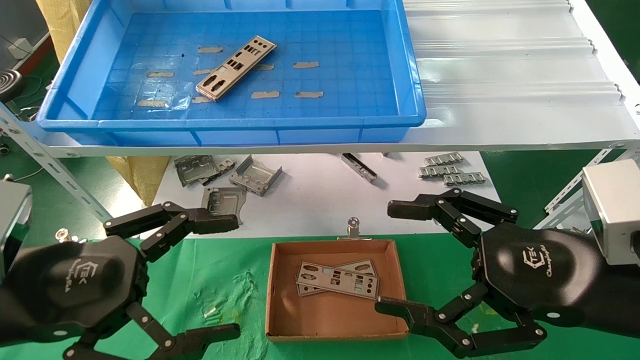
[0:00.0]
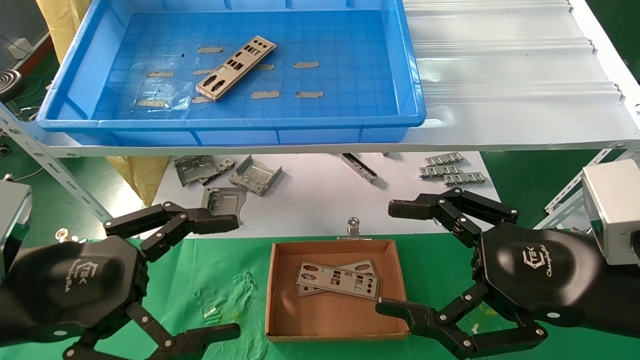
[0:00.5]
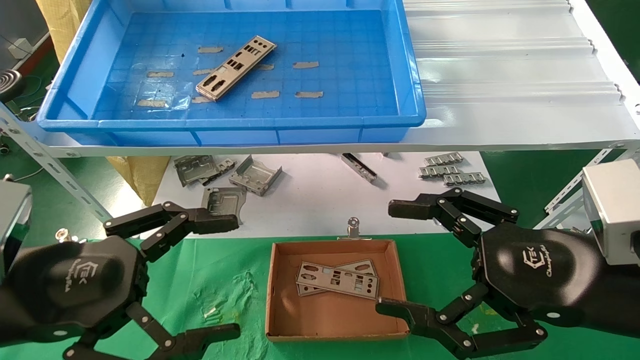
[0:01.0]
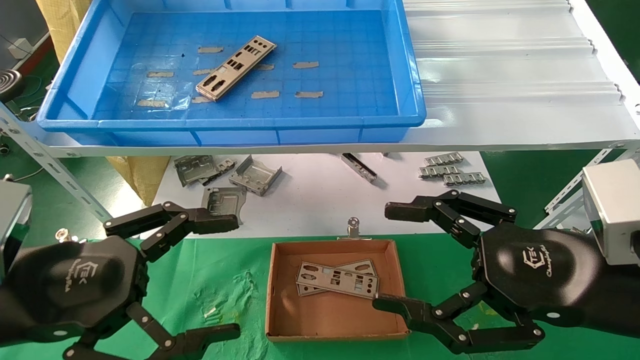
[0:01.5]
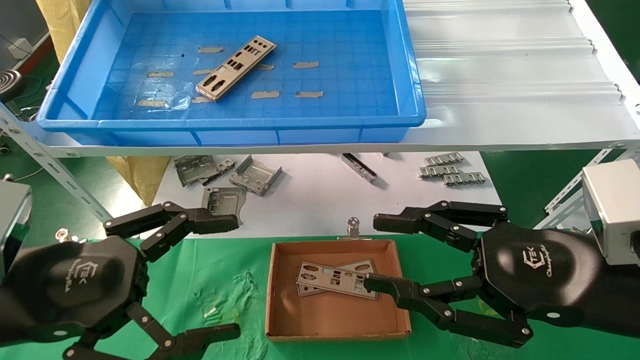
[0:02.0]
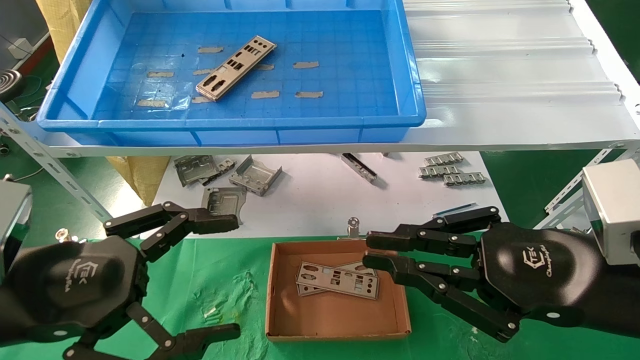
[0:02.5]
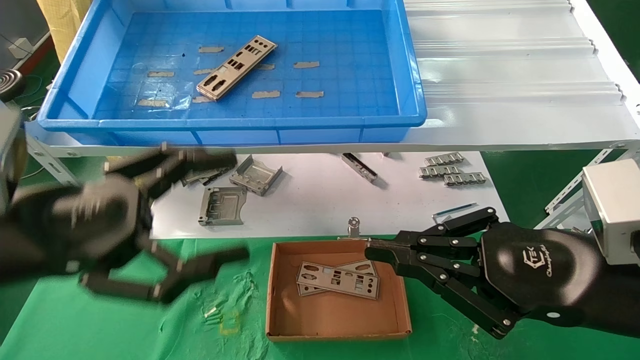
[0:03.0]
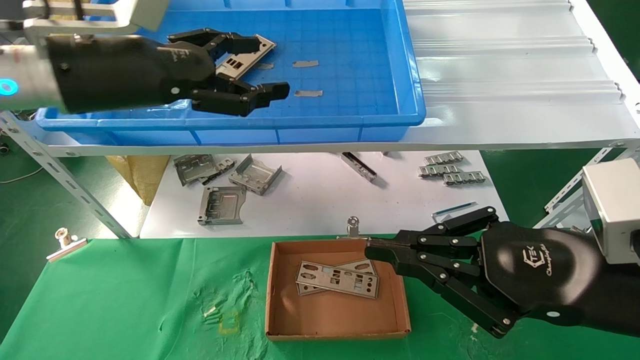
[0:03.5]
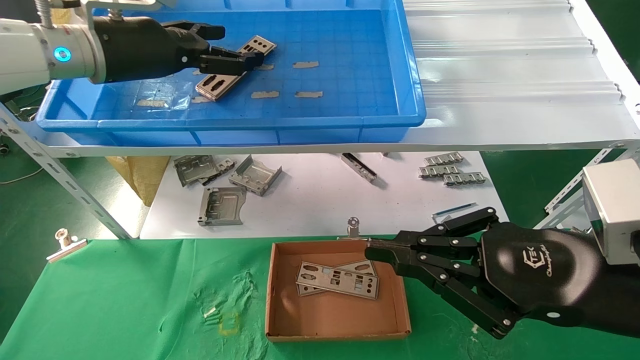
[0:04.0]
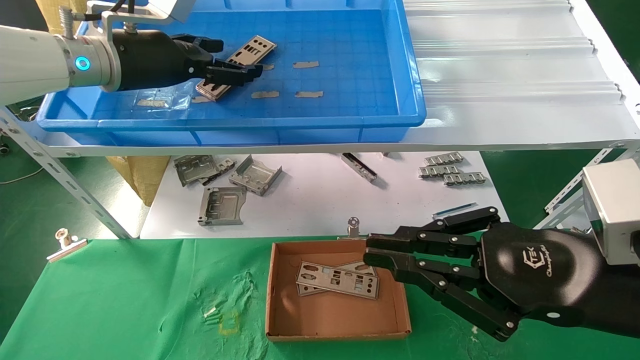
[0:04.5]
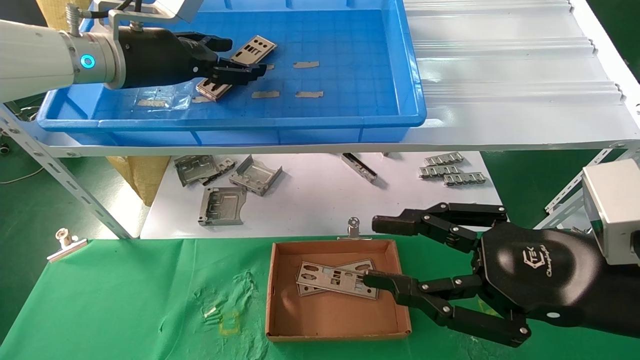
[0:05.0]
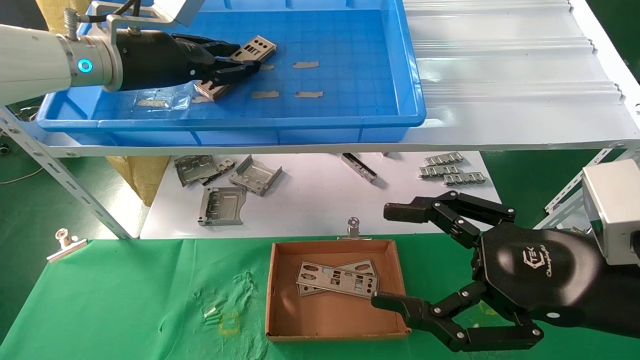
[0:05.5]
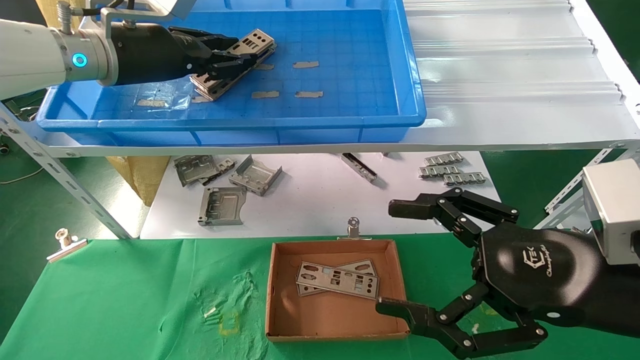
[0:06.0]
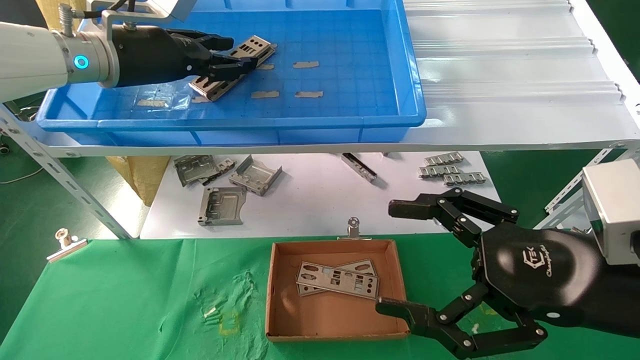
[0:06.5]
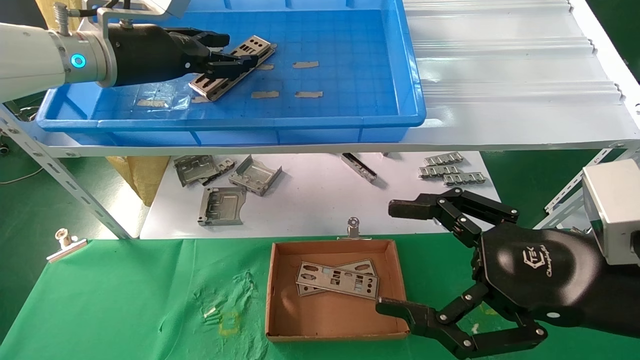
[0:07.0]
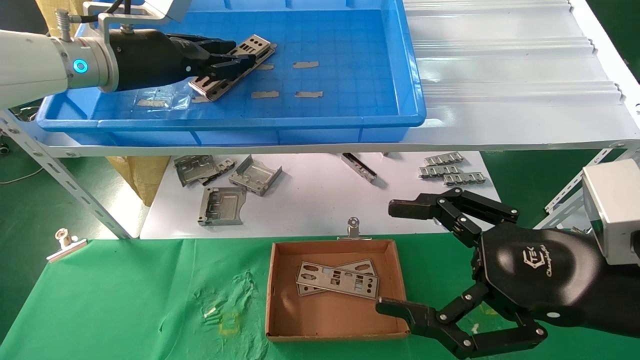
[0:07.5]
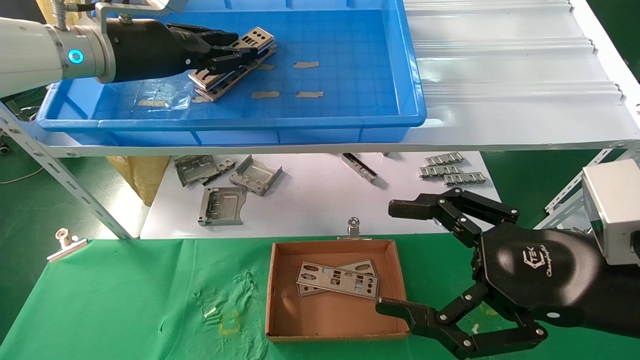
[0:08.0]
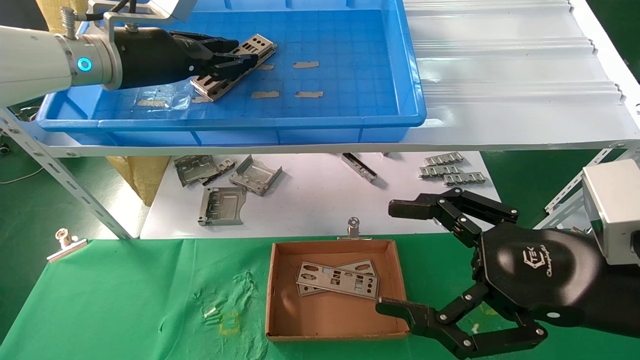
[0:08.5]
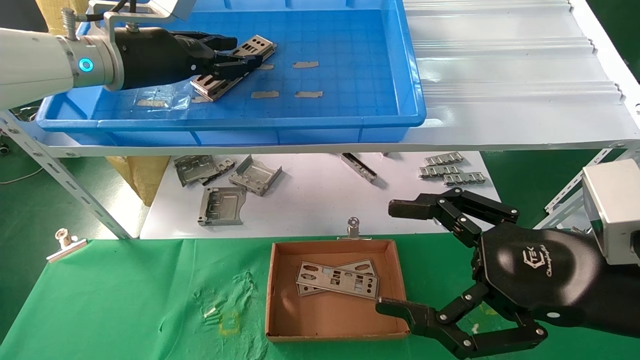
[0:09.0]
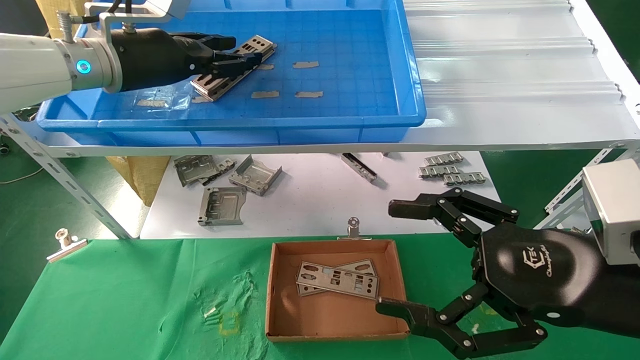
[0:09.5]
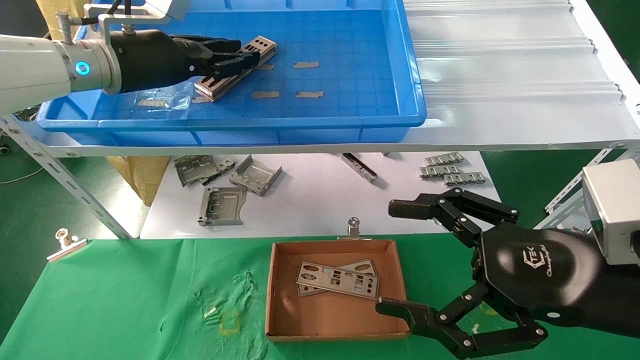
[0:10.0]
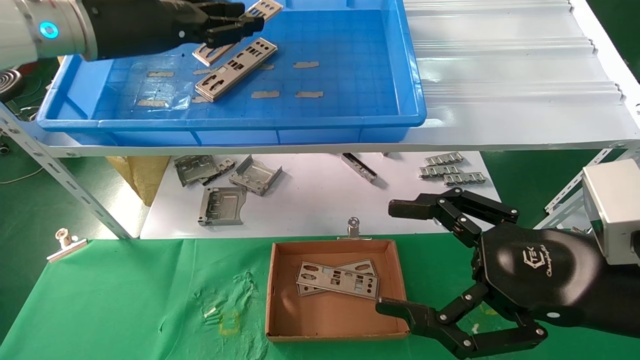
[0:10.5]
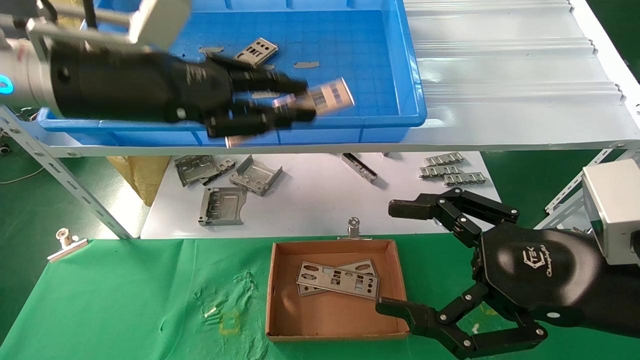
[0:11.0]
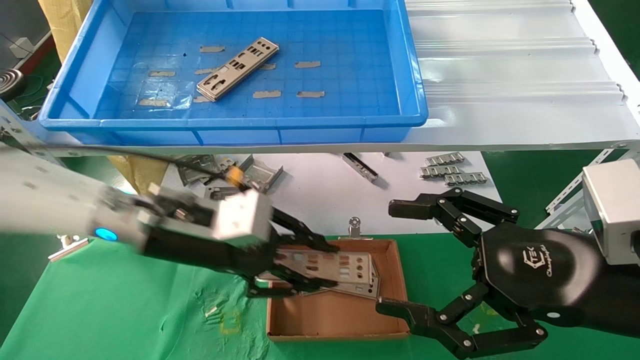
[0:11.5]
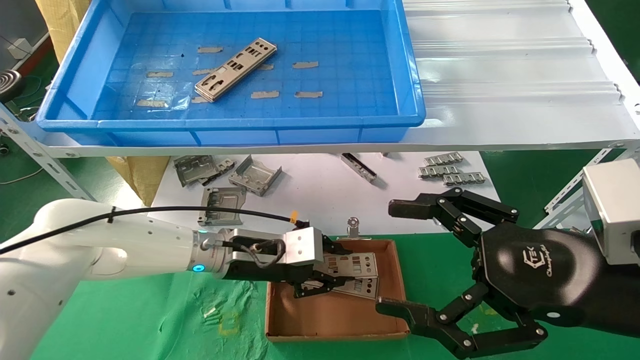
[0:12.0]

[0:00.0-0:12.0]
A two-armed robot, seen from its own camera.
Task of the whole recording: pick up the parts on the tray and put them in the cardboard box.
Step, 0:03.5 to 0:10.0: Pick up the IO bracket from the container box.
0:00.0 to 0:02.0: The right gripper closes its fingers.
0:02.0 to 0:04.0: The left gripper heads forward and upward, covering some 30 cm. Meanwhile the right gripper closes up.
0:04.0 to 0:06.0: The left gripper closes up, while the right gripper opens up.
0:06.0 to 0:08.0: The left gripper opens, then closes again.
0:08.0 to 0:10.0: There are only small adjustments of the grippers.
0:10.0 to 0:12.0: The left gripper goes approximately 30 cm downward and to the right.

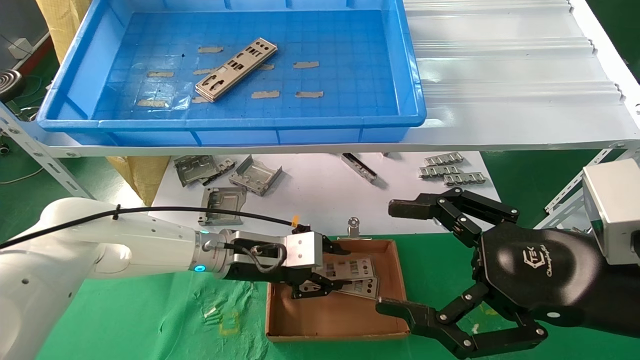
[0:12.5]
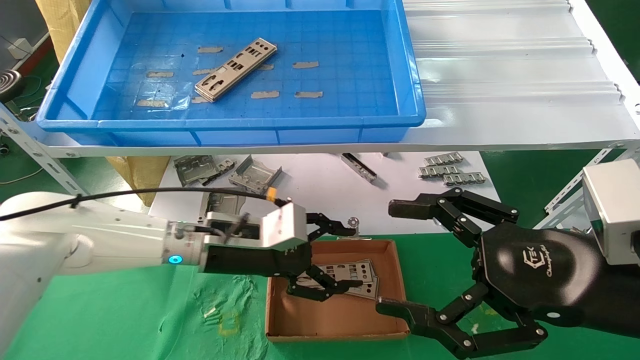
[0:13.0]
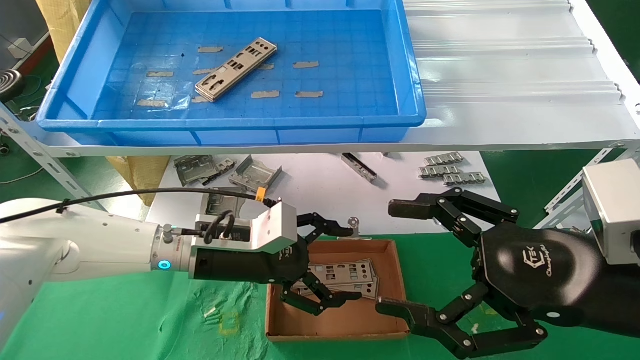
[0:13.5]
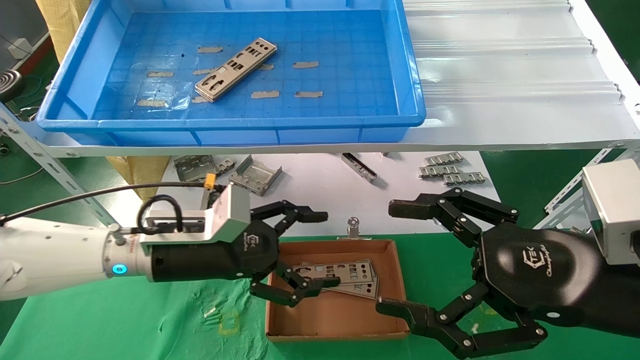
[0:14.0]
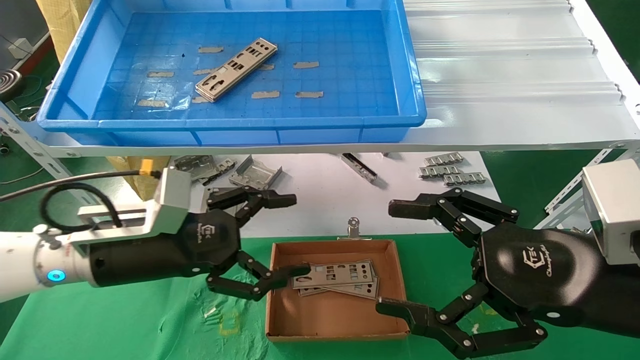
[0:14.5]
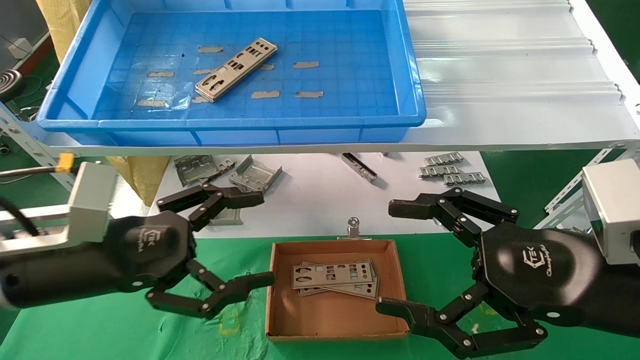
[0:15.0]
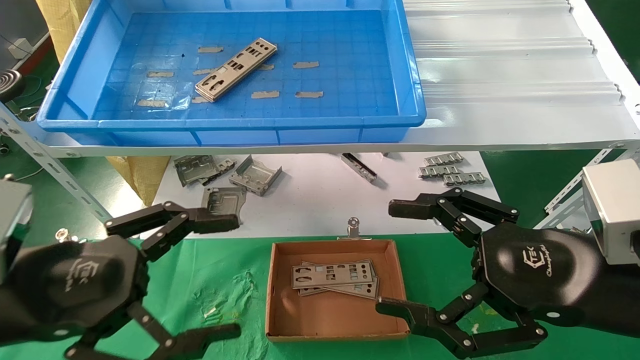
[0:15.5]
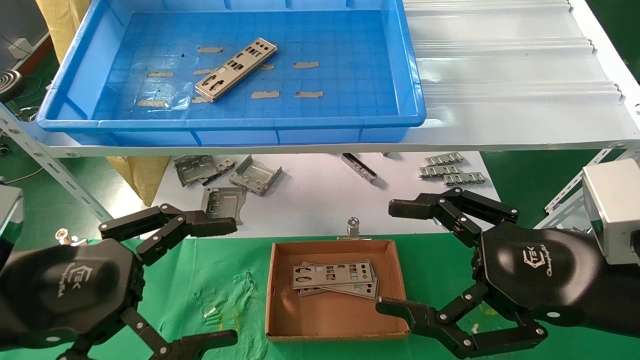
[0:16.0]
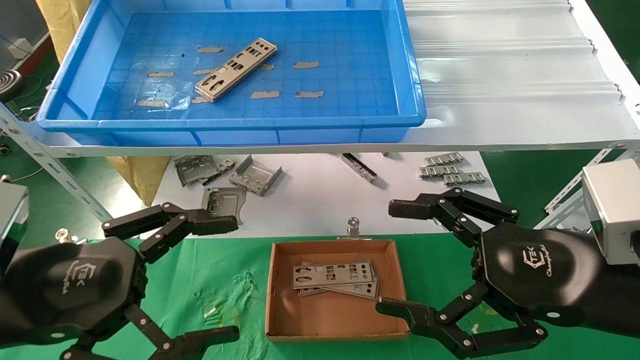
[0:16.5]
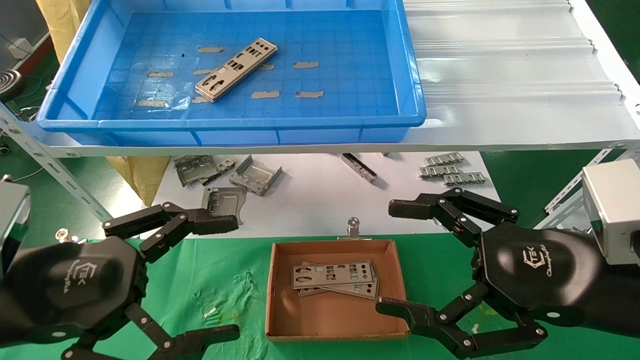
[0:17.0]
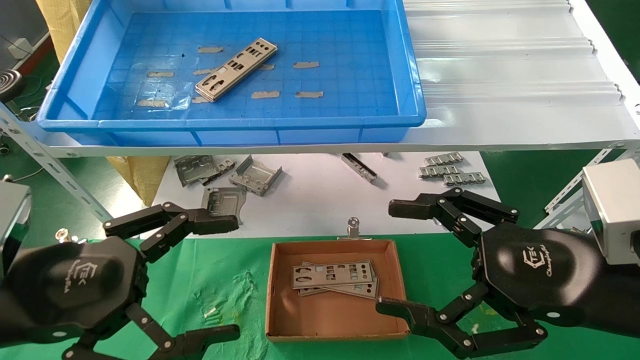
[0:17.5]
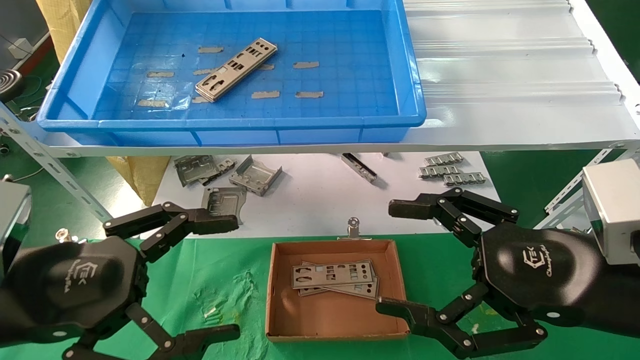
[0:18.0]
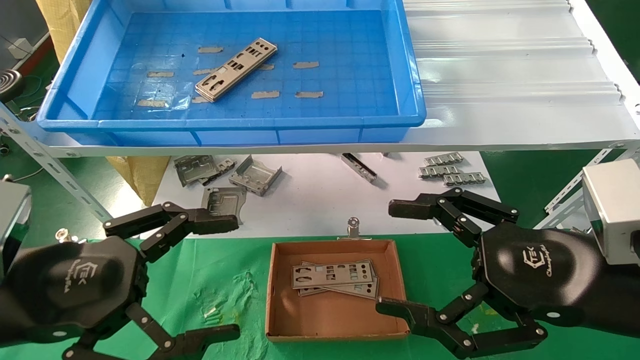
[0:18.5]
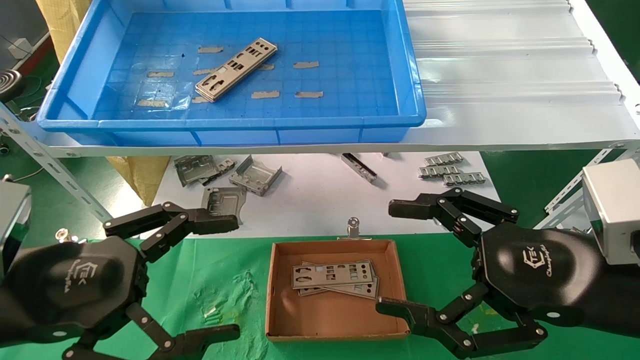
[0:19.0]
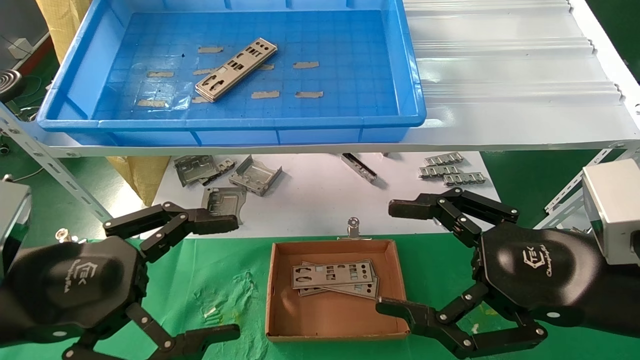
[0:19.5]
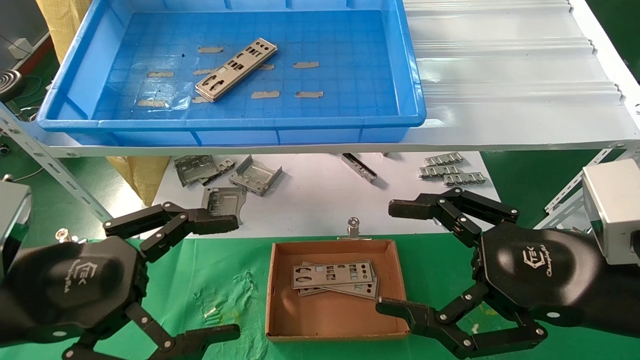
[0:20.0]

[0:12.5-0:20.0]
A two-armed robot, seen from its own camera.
Task of the whole recording: pick up the parts on the tray and put them in the cardboard box.
0:12.5 to 0:14.5: The left gripper heads to the left, backward and upward, covering about 15 cm, and opens up.
0:14.5 to 0:16.5: The left gripper shifts about 15 cm backward and to the left.
0:16.5 to 0:20.0: Both grippers stay put.
